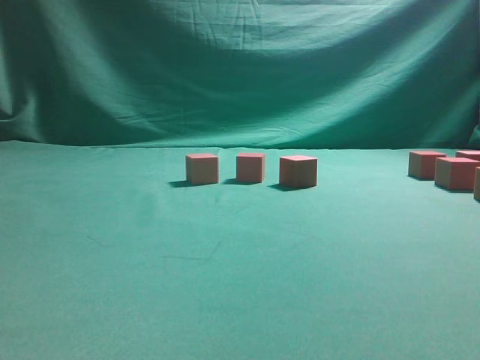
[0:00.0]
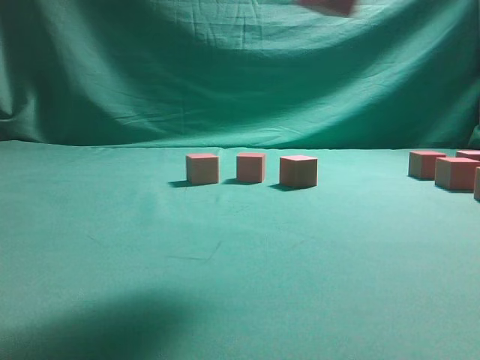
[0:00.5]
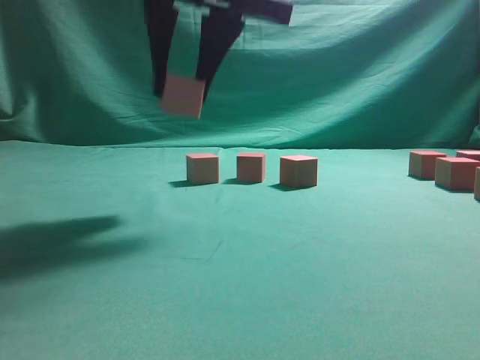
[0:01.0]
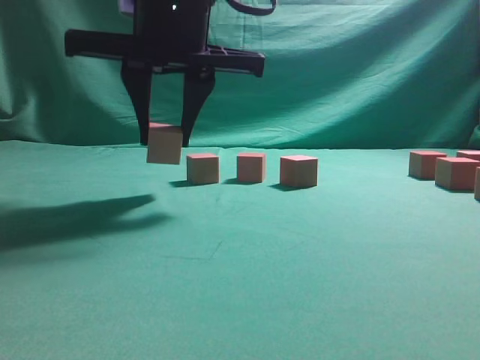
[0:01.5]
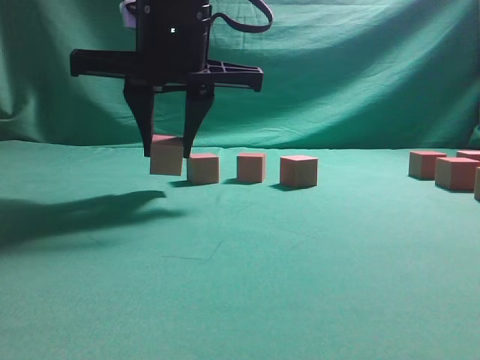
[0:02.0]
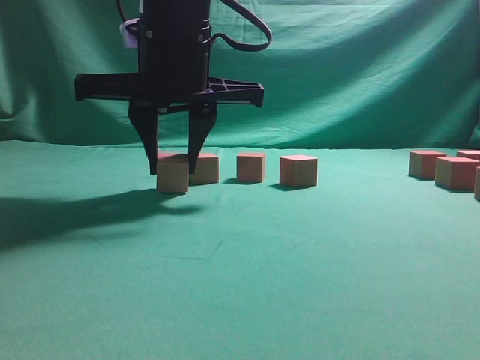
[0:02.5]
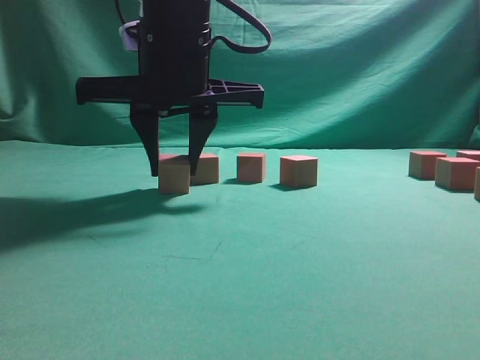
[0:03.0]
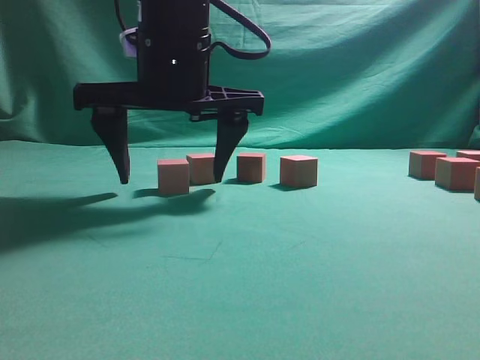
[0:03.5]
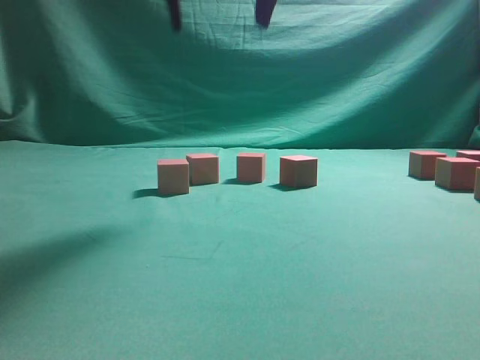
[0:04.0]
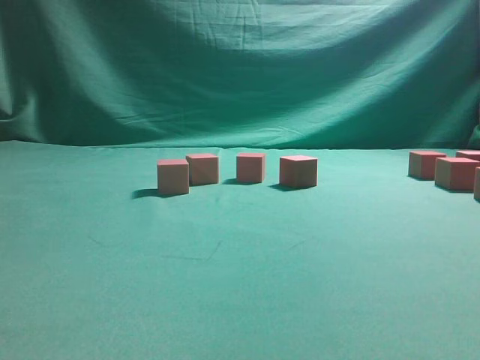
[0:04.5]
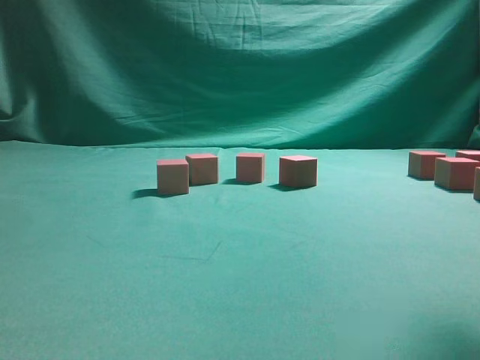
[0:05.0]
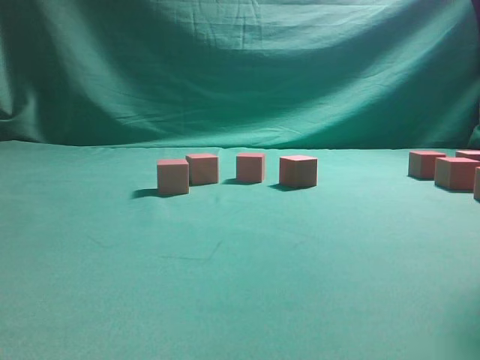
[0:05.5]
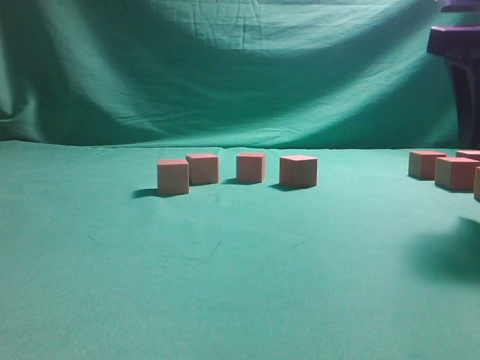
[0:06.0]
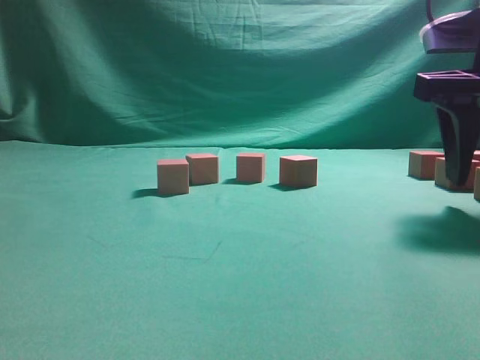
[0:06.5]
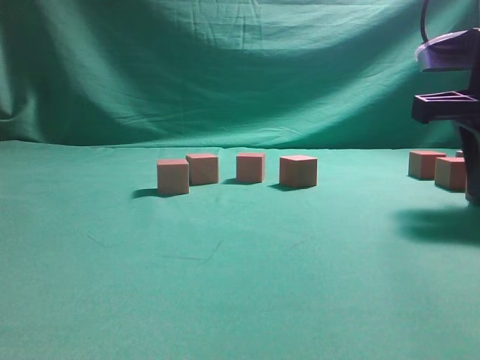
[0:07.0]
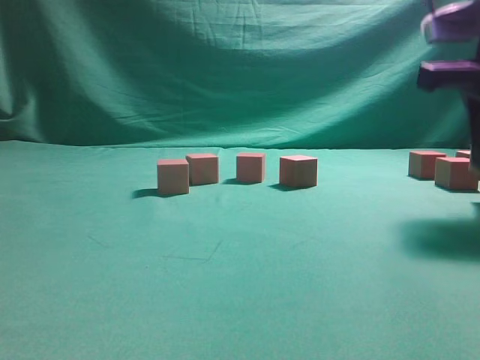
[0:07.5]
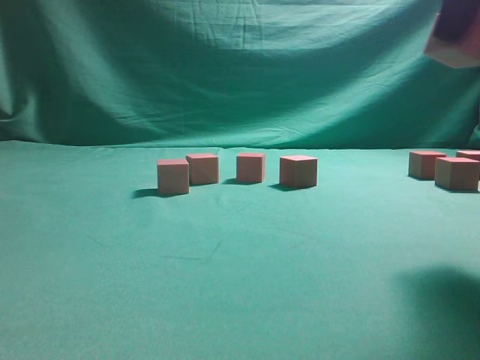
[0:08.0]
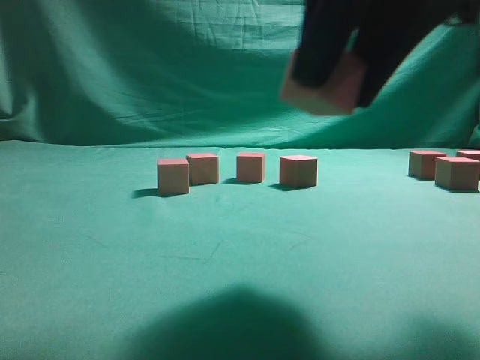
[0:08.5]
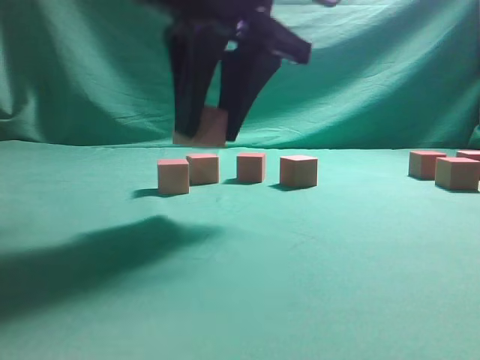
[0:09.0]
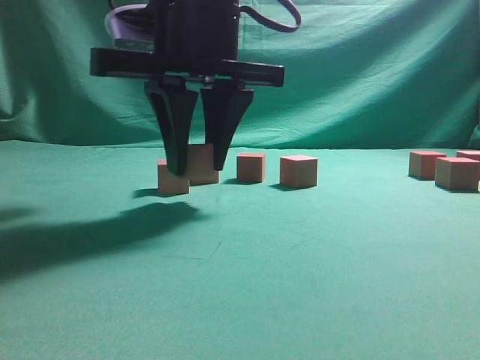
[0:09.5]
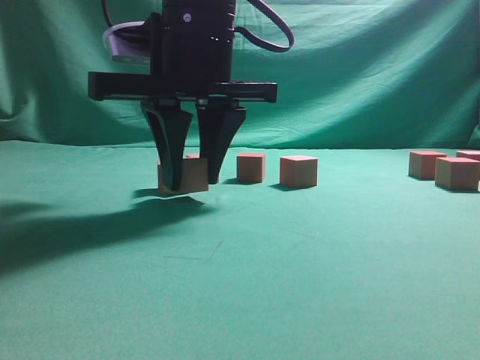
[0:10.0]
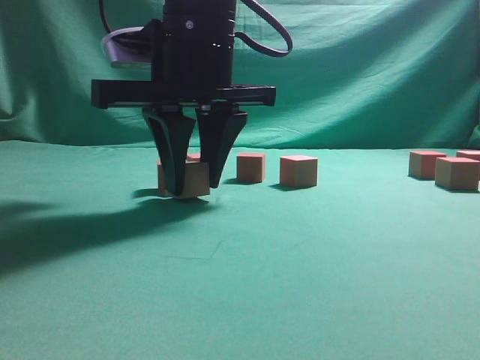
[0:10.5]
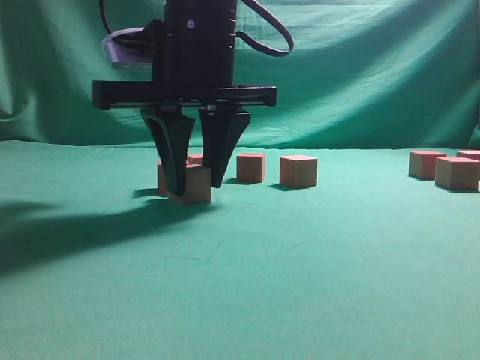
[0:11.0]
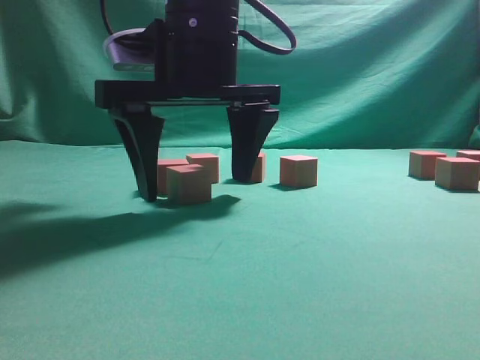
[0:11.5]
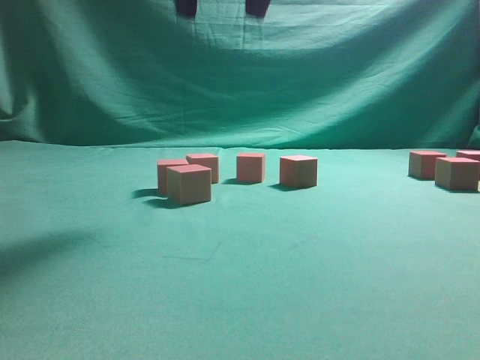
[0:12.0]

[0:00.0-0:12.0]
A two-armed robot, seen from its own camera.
Task of the whole recording: pick up the multiple cubes in two columns one by one and place them in another position on the table.
Step, 0:00.5 to 0:03.5: Place the block at the correct position to assemble the letter S.
Step, 0:04.0 to 0:07.5: Pick up the block on the table.
Step, 0:08.0 to 0:11.5: Place the block at the correct position to assemble the letter S.
0:00.0 to 0:02.0: The right gripper is displaced to the left by about 35 cm.
0:02.0 to 0:04.0: The right gripper goes about 10 cm upward, and opens up.
0:04.0 to 0:06.0: The right gripper is displaced to the right and downward by some 25 cm.
0:06.0 to 0:08.0: The right gripper goes approximately 5 cm upward, and closes up.
0:08.0 to 0:10.0: The right gripper shifts roughly 25 cm to the left.
0:10.0 to 0:12.0: The right gripper moves upward, approximately 15 cm, and opens its fingers.

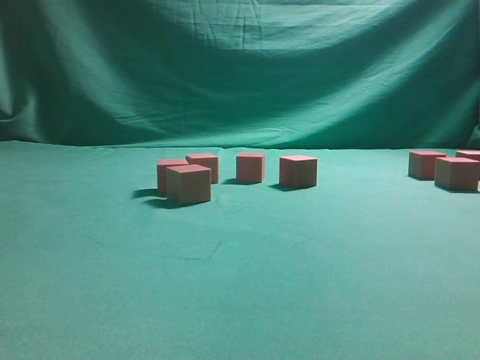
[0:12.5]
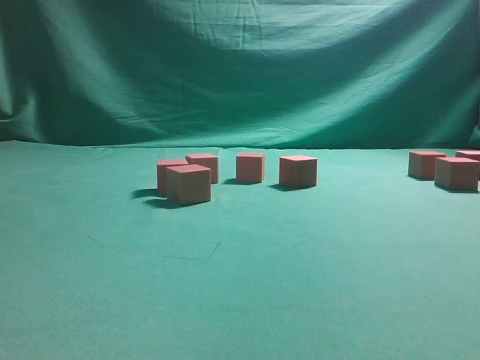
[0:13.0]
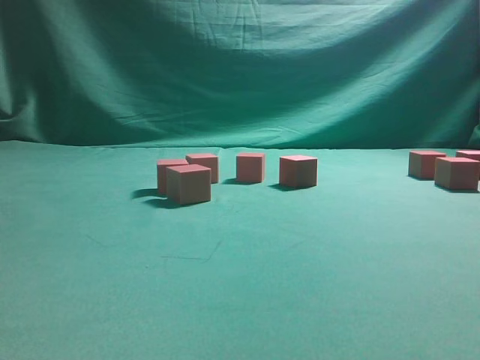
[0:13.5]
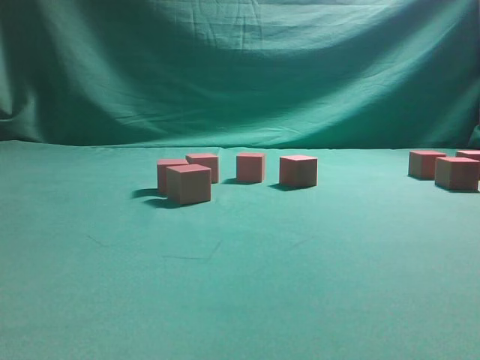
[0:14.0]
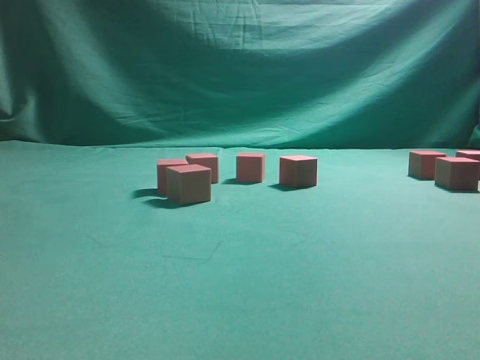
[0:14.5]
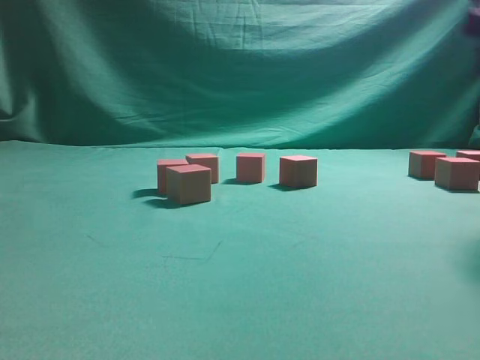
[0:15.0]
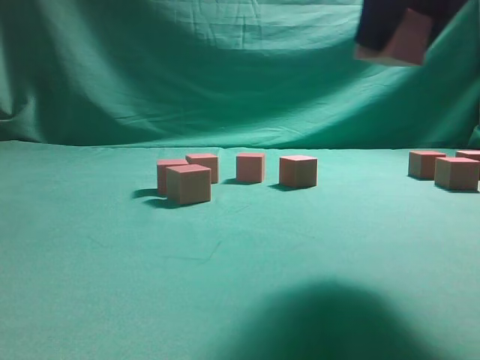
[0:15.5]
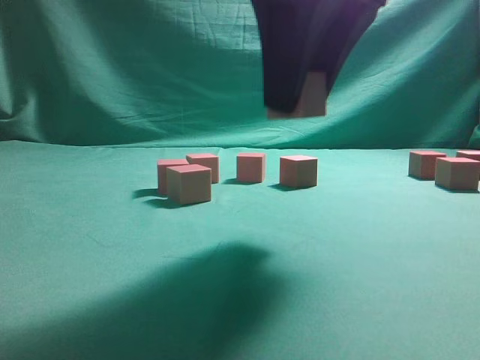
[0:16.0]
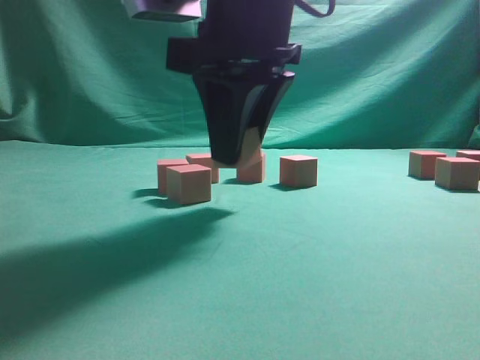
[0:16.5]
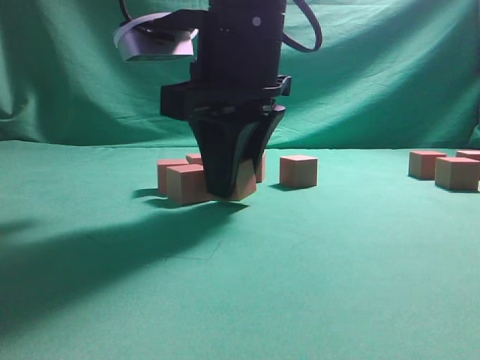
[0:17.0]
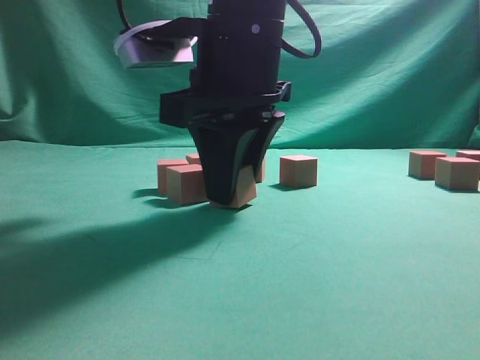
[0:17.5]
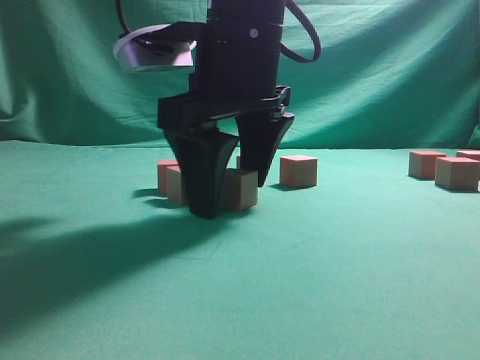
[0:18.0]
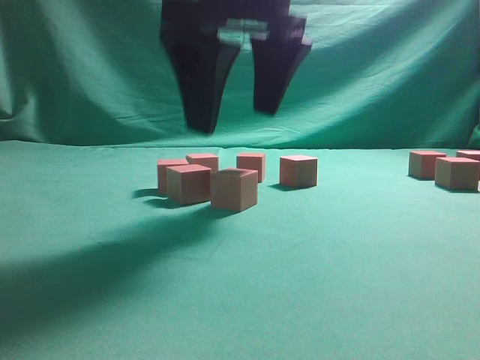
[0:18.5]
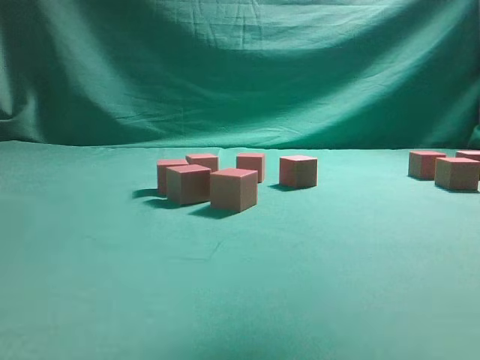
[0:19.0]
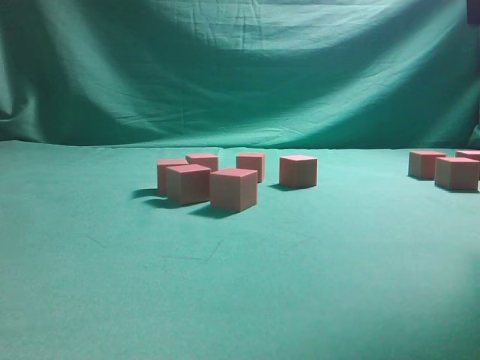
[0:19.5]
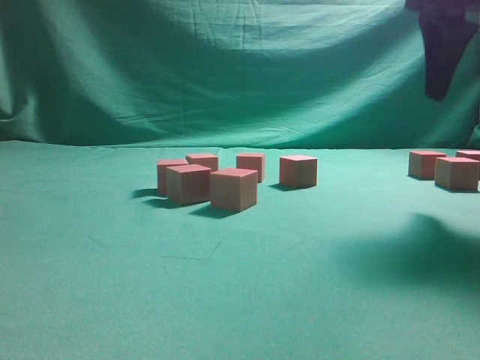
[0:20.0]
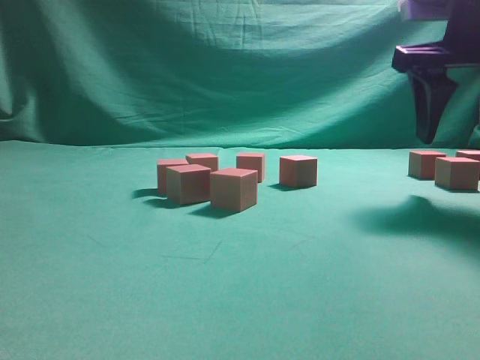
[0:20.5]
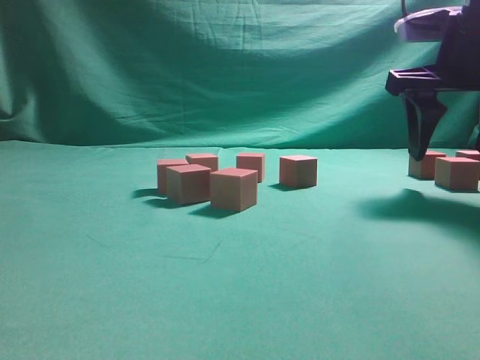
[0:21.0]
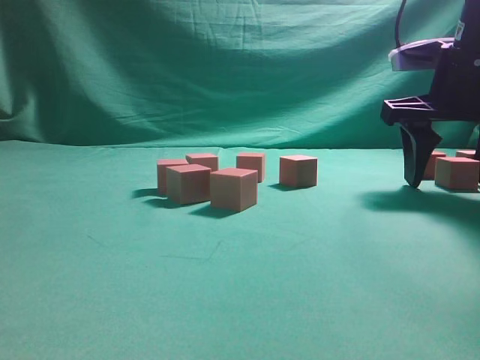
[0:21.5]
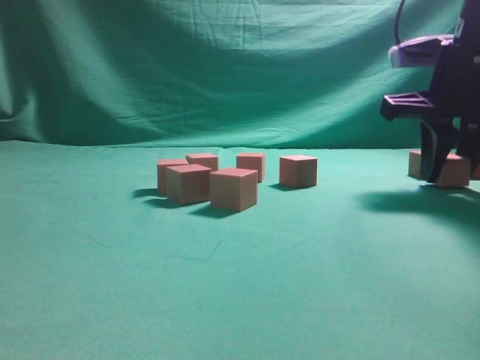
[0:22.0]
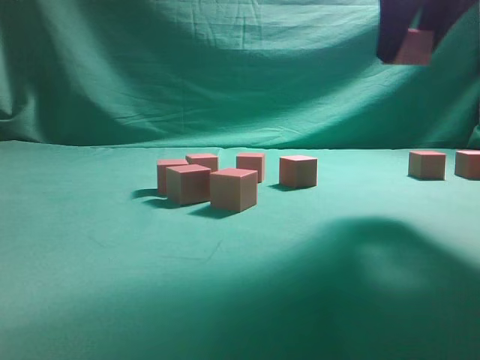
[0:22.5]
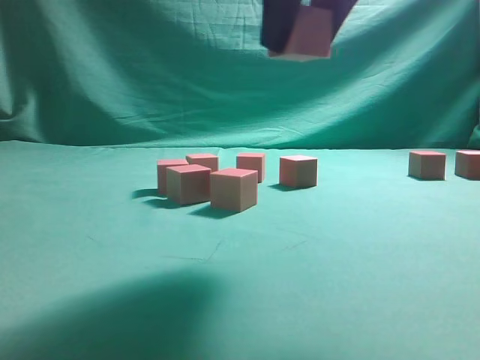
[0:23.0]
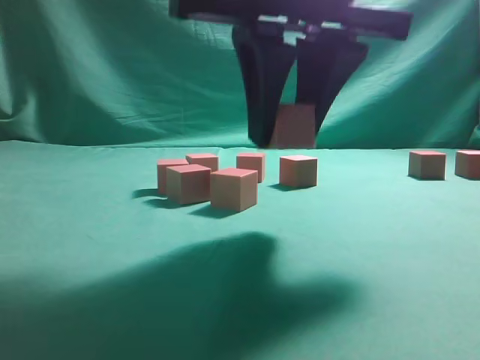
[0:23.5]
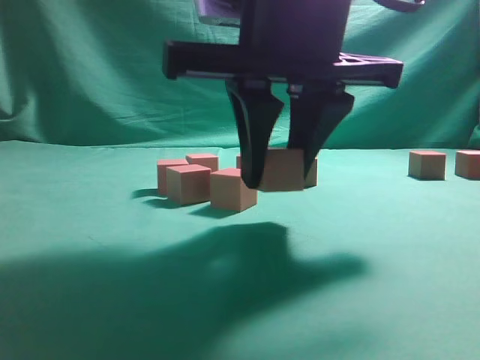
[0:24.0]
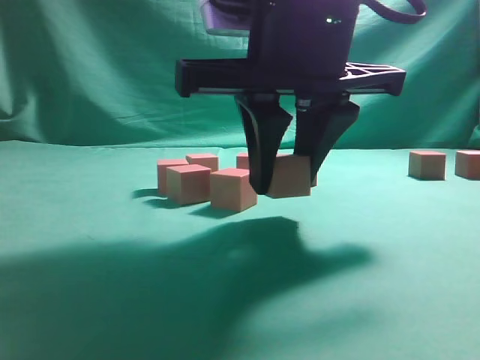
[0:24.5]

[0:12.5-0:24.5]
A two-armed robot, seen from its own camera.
Task of the whole recording: pick up the multiple cubes in two columns one by one and place them in another position on the table.
Step, 0:15.0 to 0:18.5: Place the block at the correct position to assemble the letter S.
Step, 0:19.0 to 0:22.0: Pick up the block on the table.
0:14.5 to 0:16.5: The right gripper goes about 30 cm to the left.
0:16.5 to 0:18.5: The right gripper opens.
0:18.5 to 0:20.5: The right gripper moves to the right, some 20 cm.
0:20.5 to 0:22.5: The right gripper moves upward, about 5 cm, and closes up.
0:22.5 to 0:24.5: The right gripper moves to the left, downward and backward, approximately 15 cm.

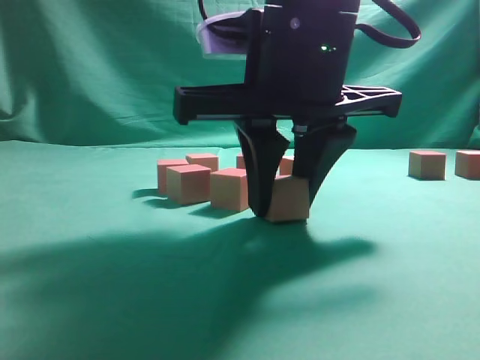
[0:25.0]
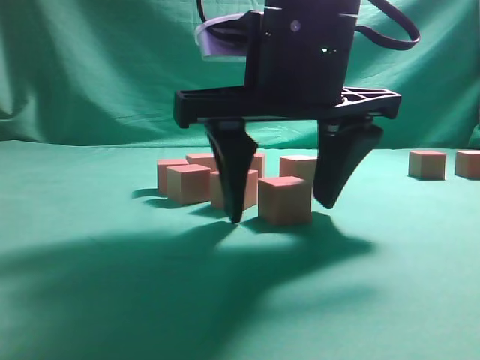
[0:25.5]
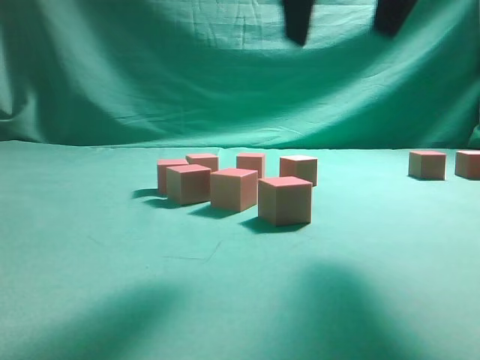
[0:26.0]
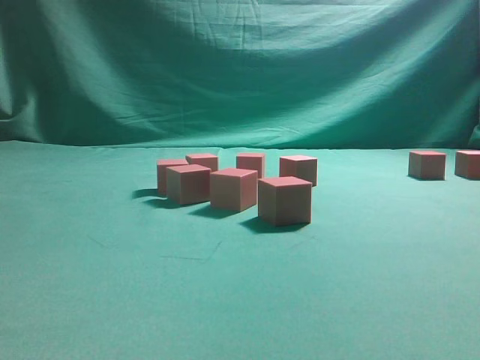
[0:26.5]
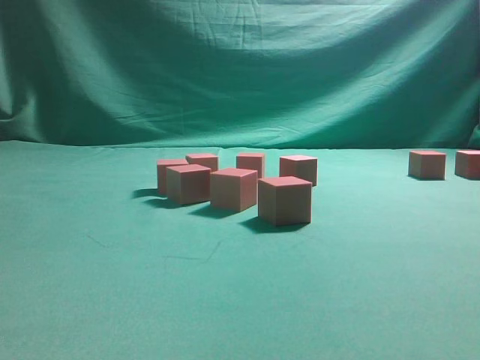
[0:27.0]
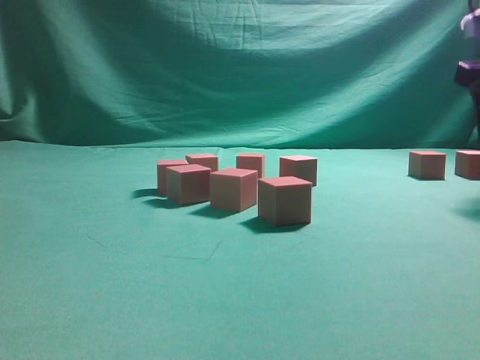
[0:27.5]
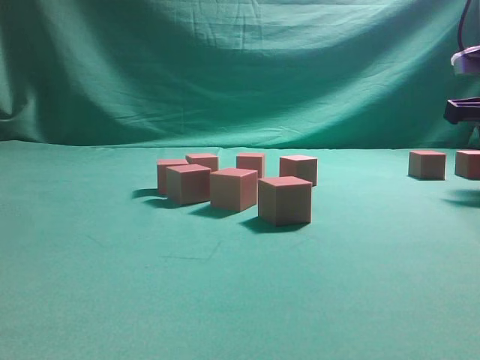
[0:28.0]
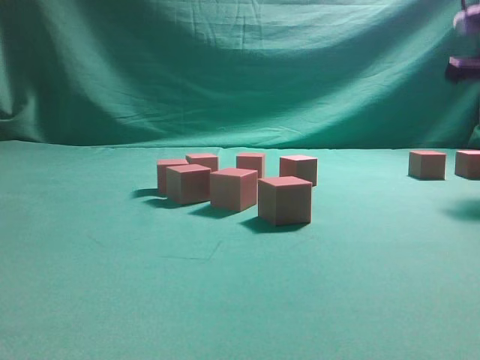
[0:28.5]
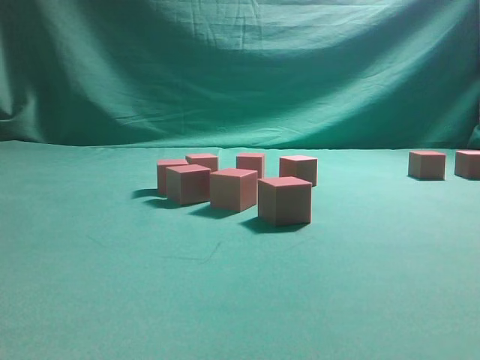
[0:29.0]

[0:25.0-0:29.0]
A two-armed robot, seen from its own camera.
Task of the whole recording: pick up the multiple cubes in two columns one by one and place them in another position on the table.
Step, 0:26.0 to 0:28.0: Pick up the block on the table.
0:25.0 to 0:27.0: The right gripper is displaced to the right by about 25 cm, and opens up.
